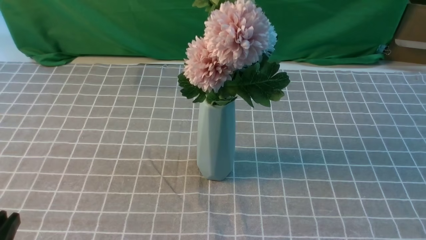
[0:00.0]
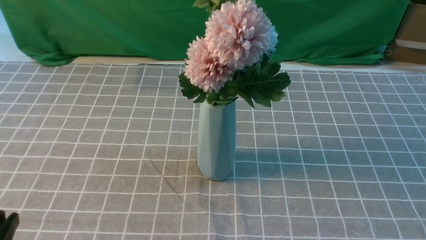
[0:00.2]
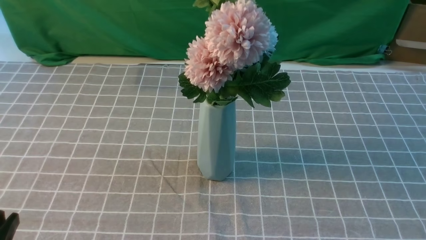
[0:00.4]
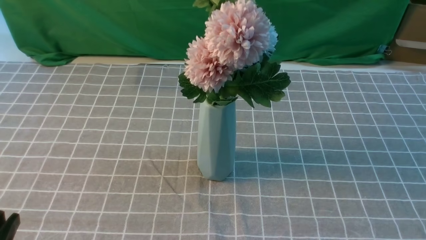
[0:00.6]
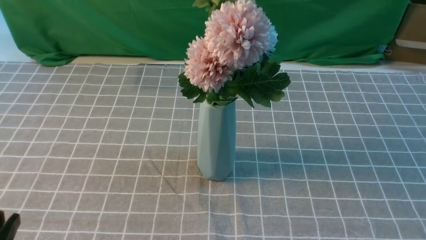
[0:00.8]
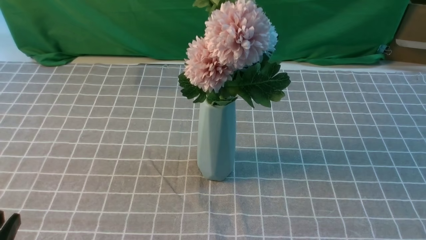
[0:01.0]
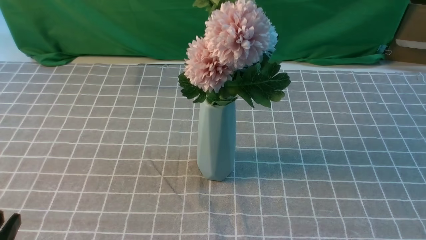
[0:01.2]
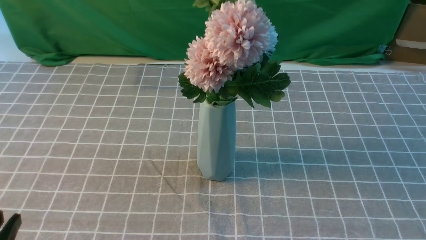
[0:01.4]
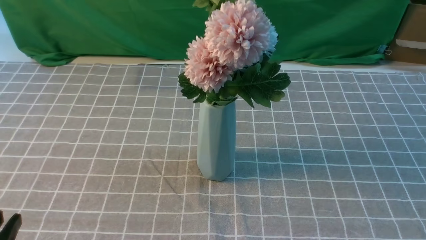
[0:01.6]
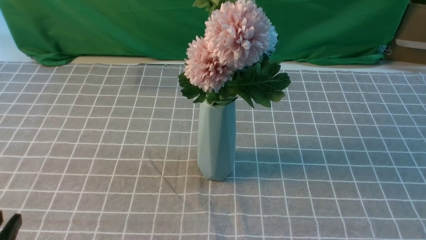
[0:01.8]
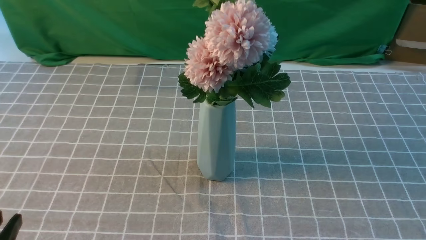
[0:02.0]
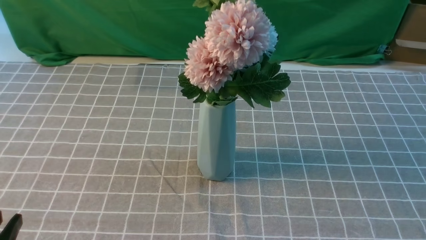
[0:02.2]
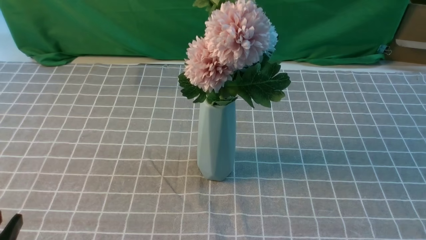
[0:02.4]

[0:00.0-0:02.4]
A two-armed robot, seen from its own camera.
Task of the whole recording: insert the flowers into the vase on the table with the grey tablecloth.
0:01.2 to 0:02.4: Both grippers stay about where they are.
